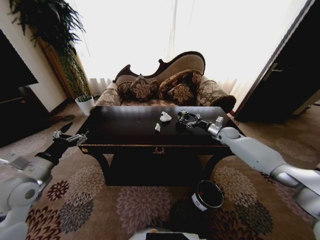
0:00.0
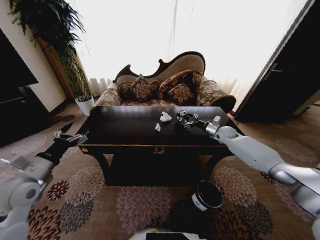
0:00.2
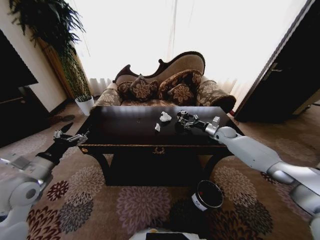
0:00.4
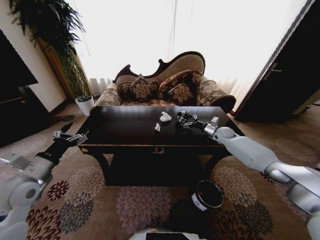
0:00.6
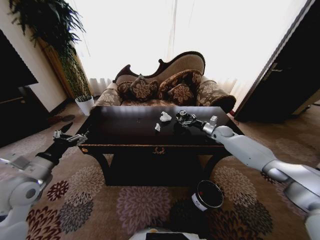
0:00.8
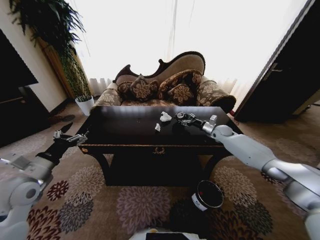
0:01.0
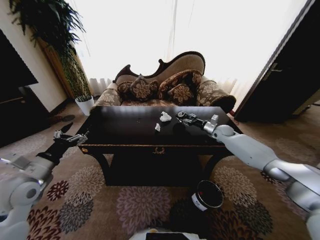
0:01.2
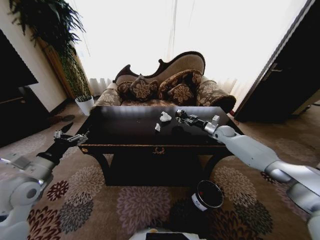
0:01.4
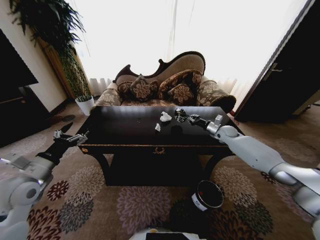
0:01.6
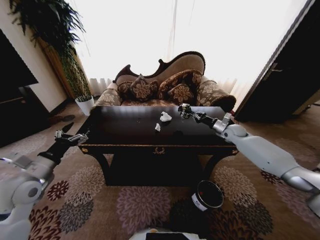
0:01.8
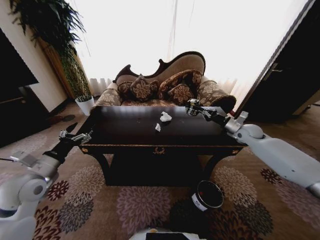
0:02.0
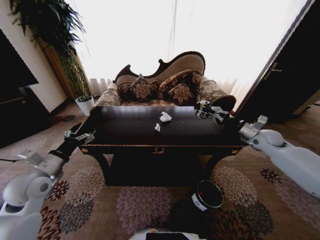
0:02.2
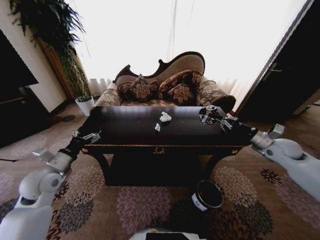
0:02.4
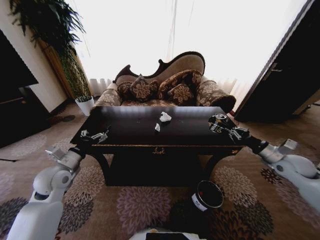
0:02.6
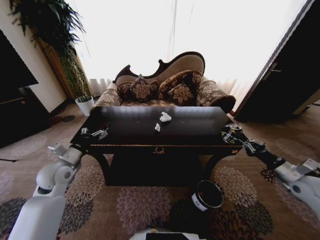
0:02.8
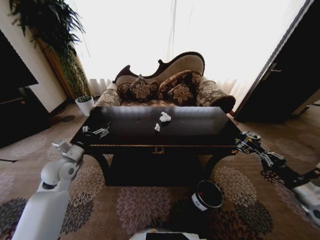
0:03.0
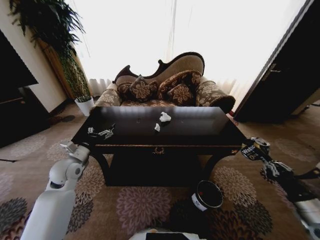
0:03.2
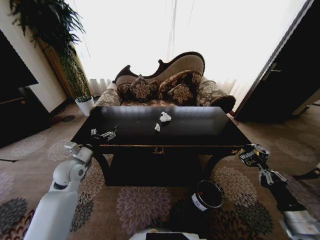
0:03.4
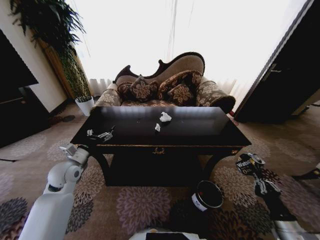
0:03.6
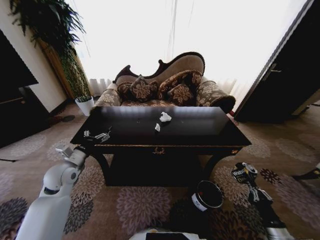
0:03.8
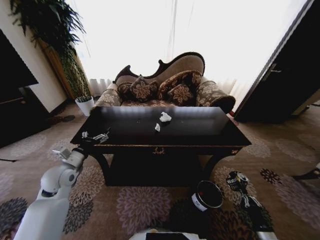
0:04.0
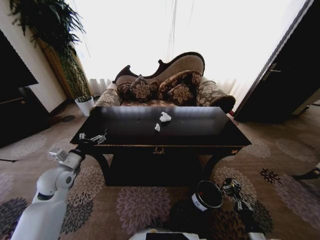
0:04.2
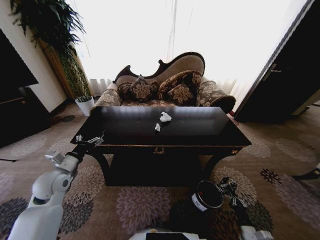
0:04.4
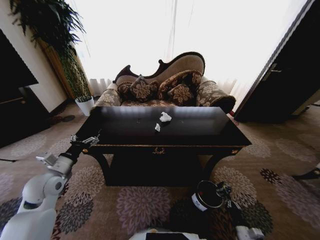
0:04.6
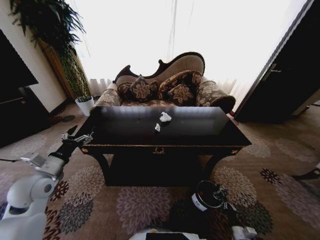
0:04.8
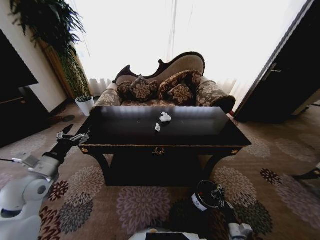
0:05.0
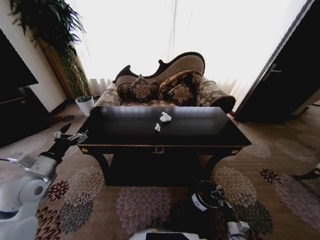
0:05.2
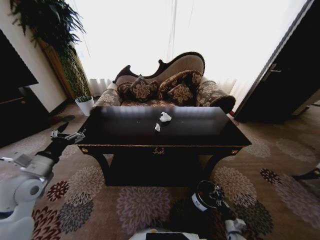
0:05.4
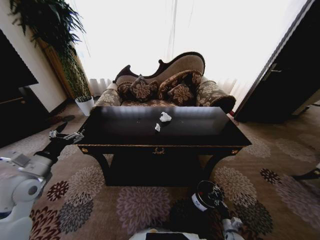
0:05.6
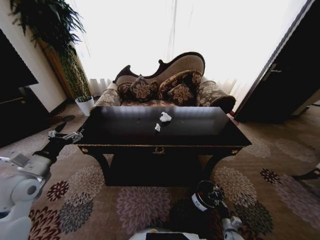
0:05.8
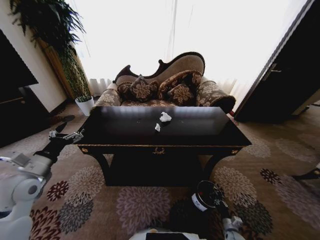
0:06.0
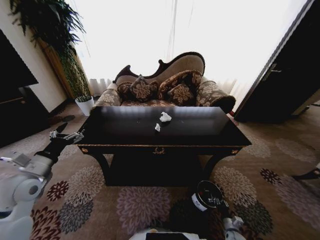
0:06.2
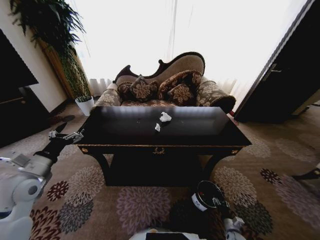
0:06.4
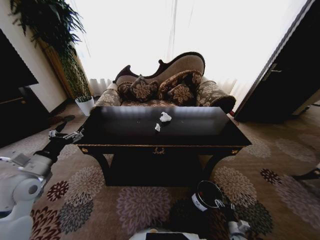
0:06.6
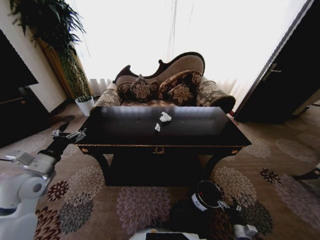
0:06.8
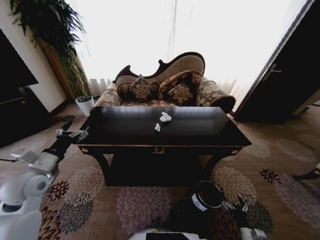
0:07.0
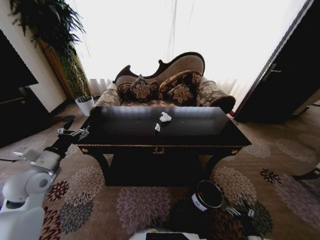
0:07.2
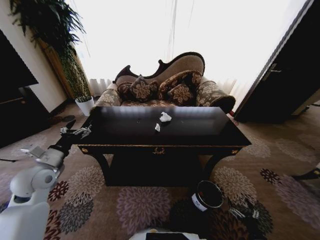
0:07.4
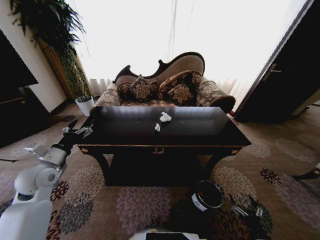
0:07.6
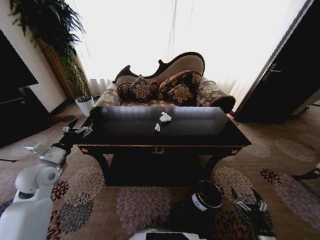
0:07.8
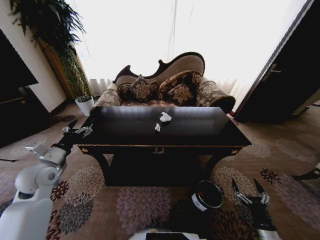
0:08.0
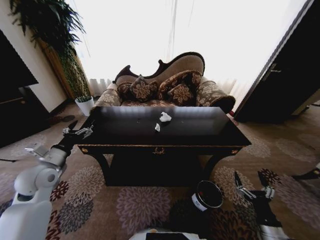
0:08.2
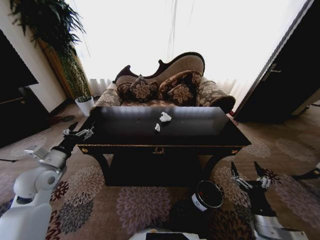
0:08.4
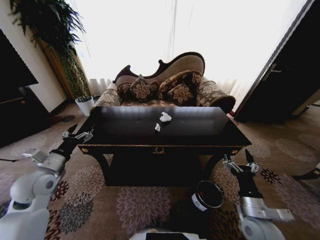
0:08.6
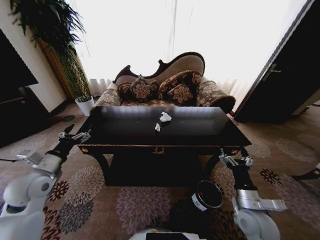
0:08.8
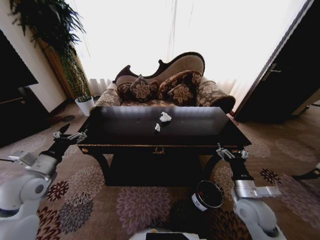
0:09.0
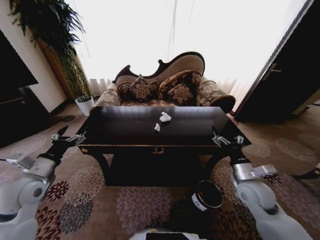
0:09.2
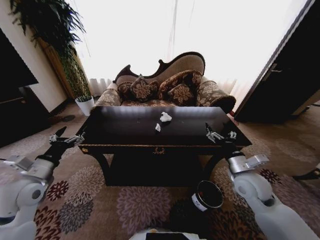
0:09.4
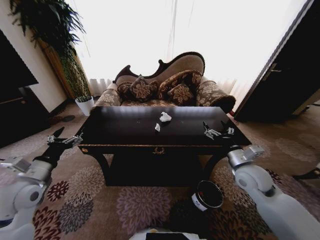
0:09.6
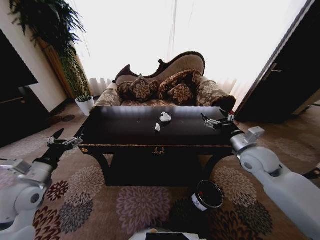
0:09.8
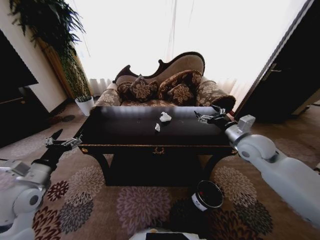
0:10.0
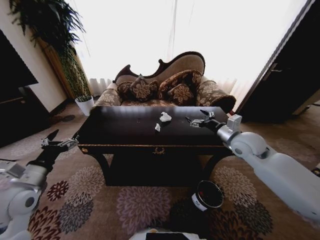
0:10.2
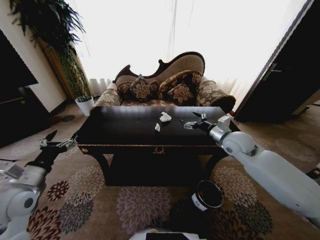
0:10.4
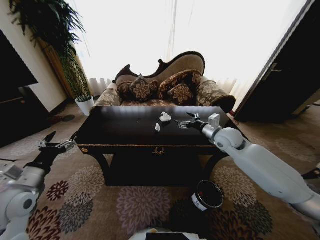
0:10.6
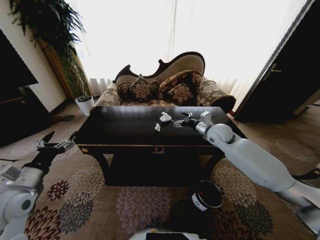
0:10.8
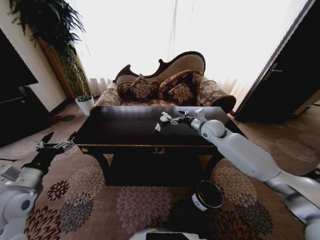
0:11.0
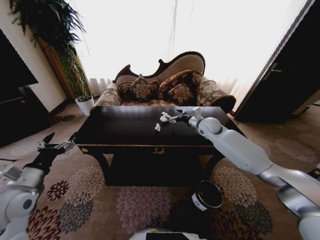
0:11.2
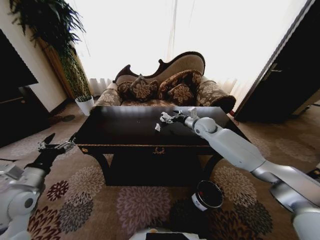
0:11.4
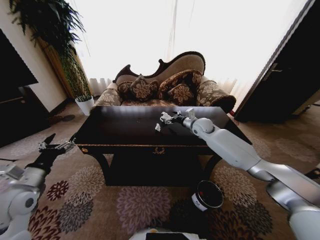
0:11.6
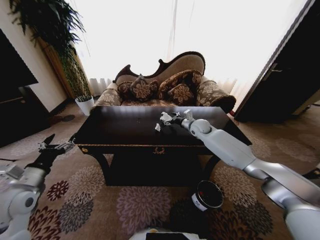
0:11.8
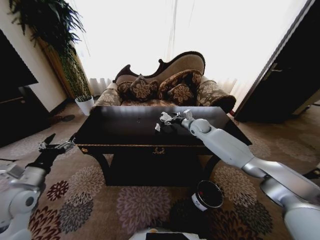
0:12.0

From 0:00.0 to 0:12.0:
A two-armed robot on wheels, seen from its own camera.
Task of the whole recording: Move to the front of the table and place the trash on the table into the trash bin.
From 0:00.0 to 0:01.6: The right gripper closes its fingers.
From 0:01.6 to 0:03.0: The left gripper goes approximately 10 cm forward; the right gripper travels backward by some 40 cm.
From 0:03.0 to 0:04.4: The right gripper moves downward, approximately 30 cm.
From 0:04.4 to 0:06.0: The left gripper is displaced upward by some 5 cm. The right gripper travels downward by about 10 cm.
From 0:06.0 to 0:07.6: The right gripper heads upward and backward, covering approximately 15 cm, and opens its fingers.
From 0:07.6 to 0:09.0: The right gripper moves upward, forward and to the left, about 30 cm.
From 0:09.0 to 0:10.4: The right gripper heads forward and upward, covering some 25 cm.
From 0:10.4 to 0:12.0: The right gripper goes about 20 cm forward and to the left.

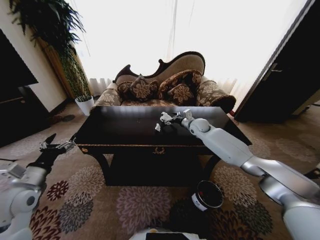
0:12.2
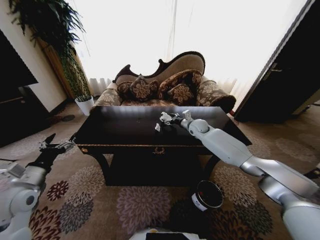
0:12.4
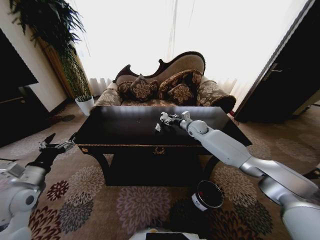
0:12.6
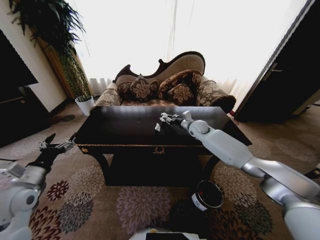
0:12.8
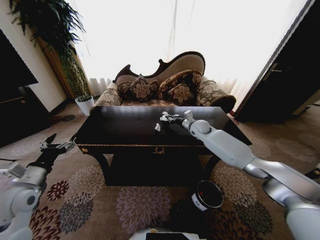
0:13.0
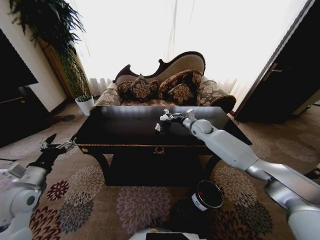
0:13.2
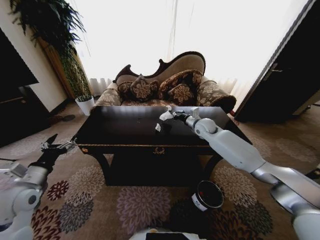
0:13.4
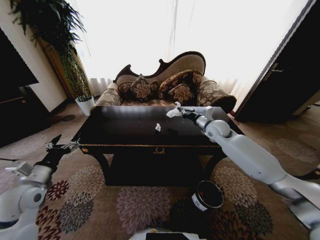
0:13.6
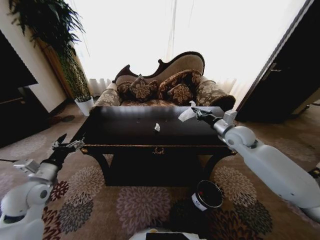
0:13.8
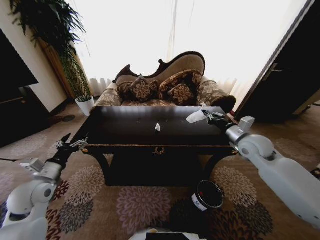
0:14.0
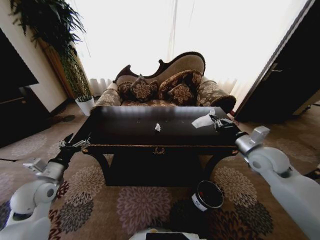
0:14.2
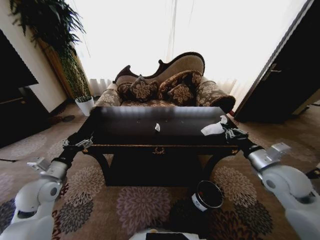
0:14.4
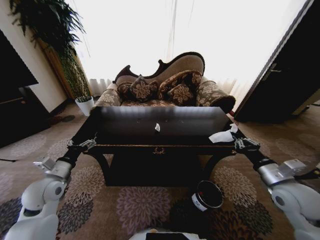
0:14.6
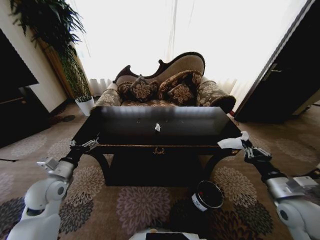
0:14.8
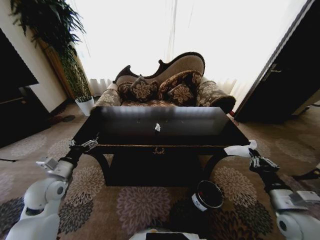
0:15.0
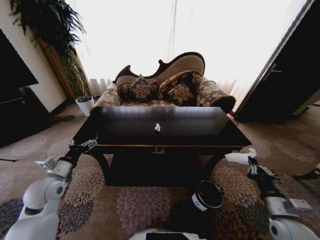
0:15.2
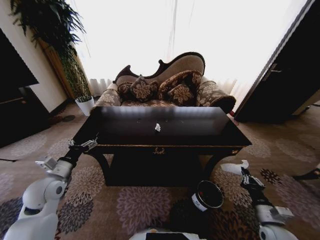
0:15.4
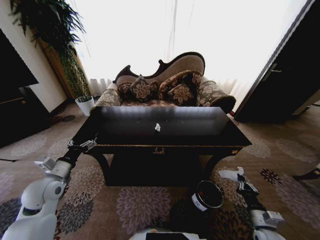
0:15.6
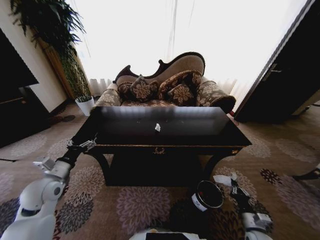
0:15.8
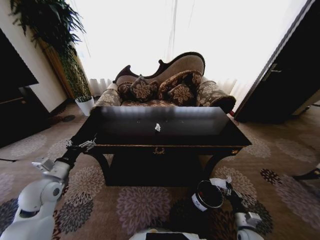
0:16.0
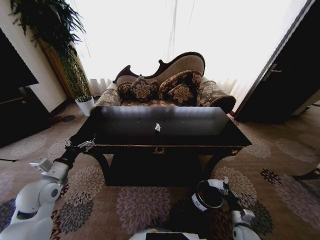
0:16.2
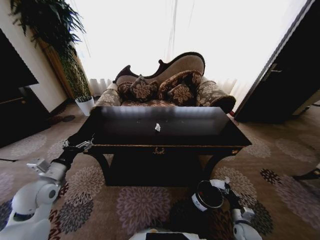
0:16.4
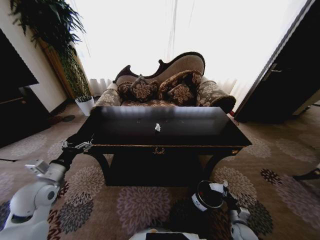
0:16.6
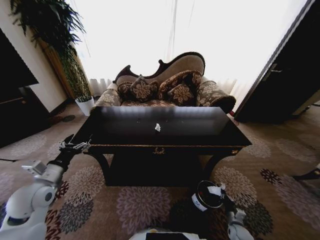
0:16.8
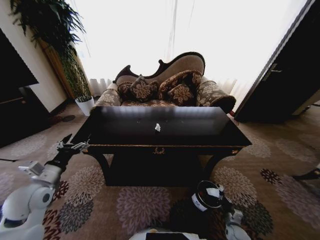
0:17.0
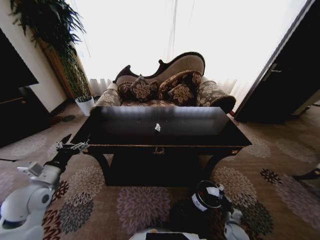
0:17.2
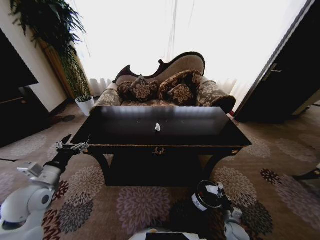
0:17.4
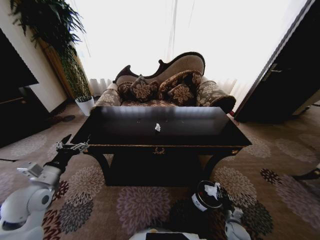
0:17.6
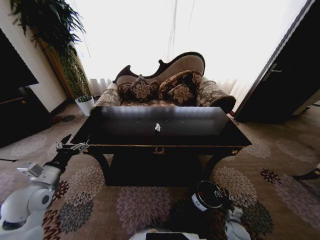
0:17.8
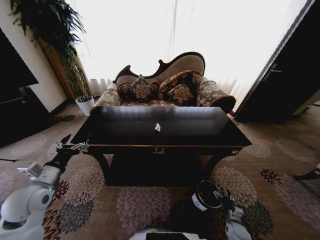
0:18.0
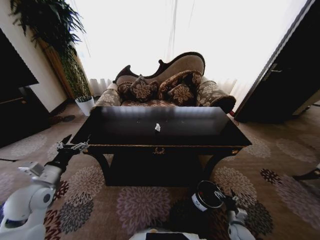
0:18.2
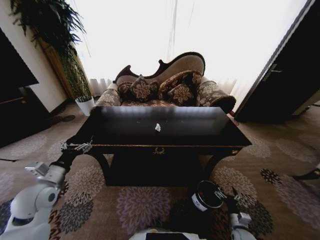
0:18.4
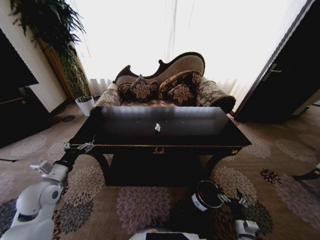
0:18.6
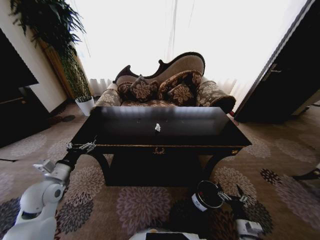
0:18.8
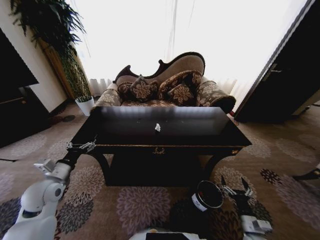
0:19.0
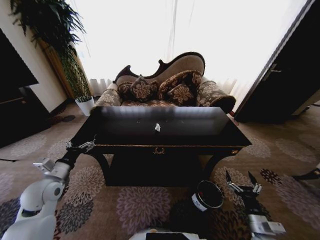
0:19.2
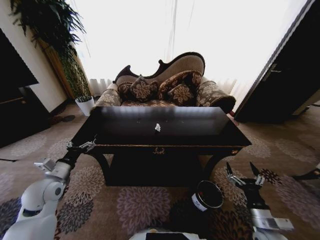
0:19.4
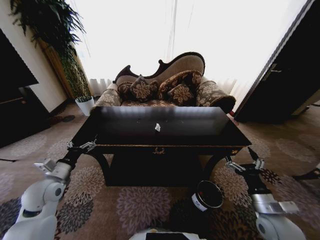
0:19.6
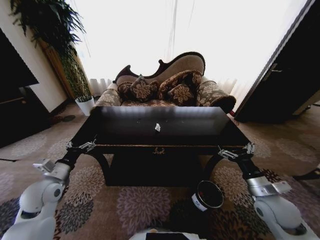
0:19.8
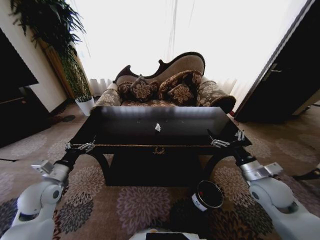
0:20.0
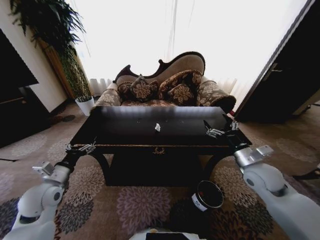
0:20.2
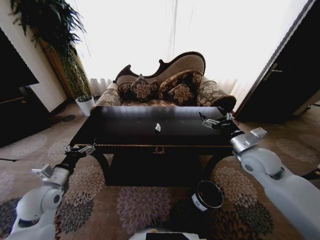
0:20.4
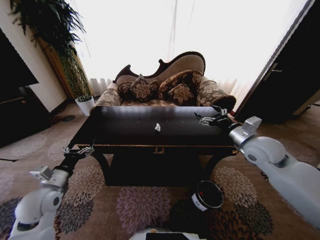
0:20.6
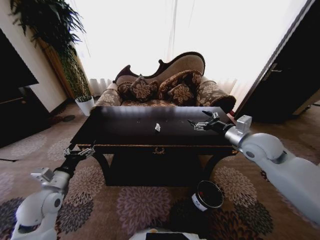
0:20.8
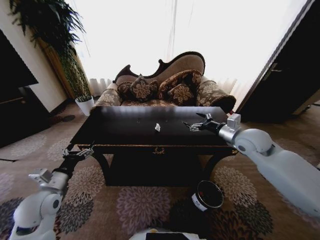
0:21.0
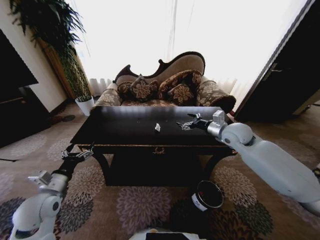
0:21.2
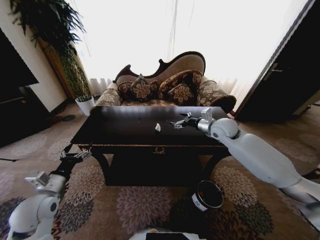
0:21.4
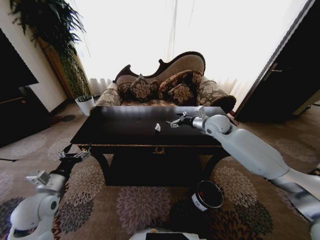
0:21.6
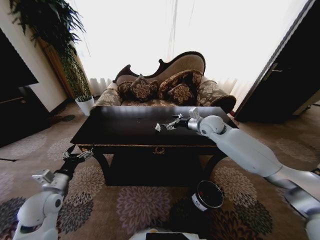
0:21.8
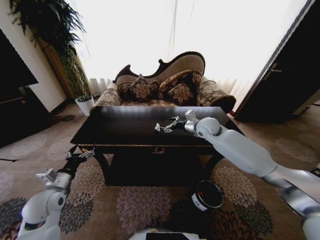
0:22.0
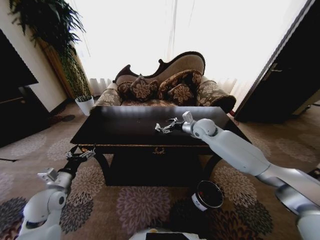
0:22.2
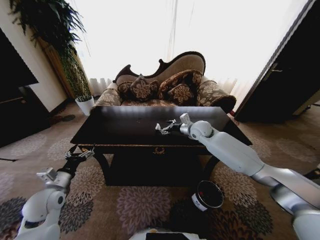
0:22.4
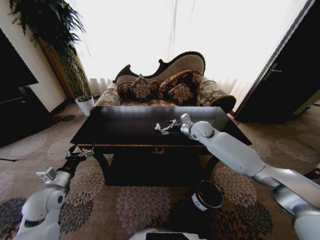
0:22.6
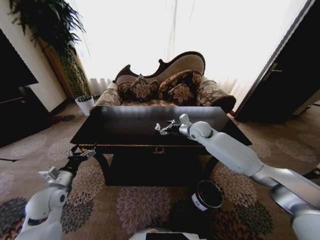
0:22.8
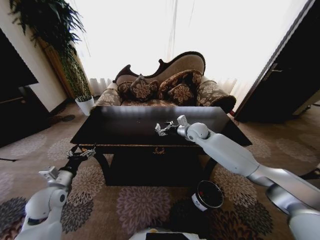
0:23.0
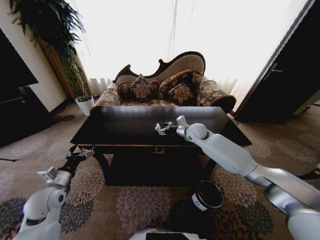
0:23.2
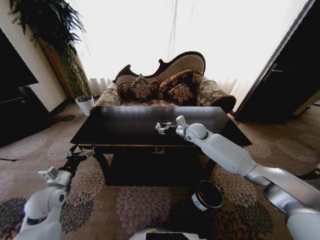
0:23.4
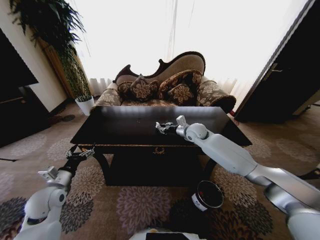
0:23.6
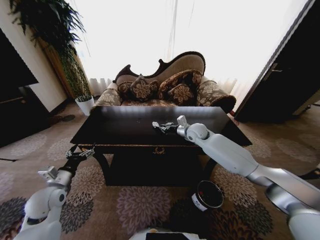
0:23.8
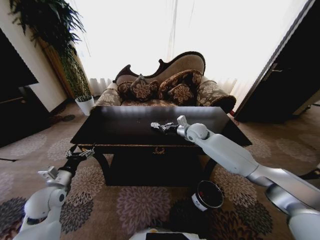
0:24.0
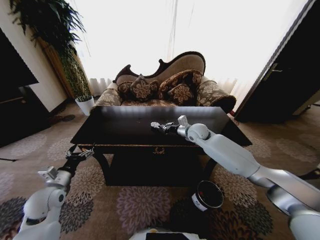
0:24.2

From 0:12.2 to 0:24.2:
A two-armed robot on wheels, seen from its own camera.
Task of the whole recording: Move to the front of the table and place the trash on the table into the trash bin.
From 0:12.2 to 0:13.8: The right gripper heads backward and to the right, covering some 15 cm, and closes.
From 0:13.8 to 0:15.2: The right gripper goes about 35 cm backward and downward.
From 0:15.2 to 0:16.6: The right gripper is displaced downward by some 25 cm.
From 0:16.6 to 0:18.2: The right gripper opens its fingers.
From 0:18.2 to 0:19.8: The right gripper moves upward, about 30 cm.
From 0:19.8 to 0:21.2: The right gripper travels forward and upward by approximately 25 cm.
From 0:21.2 to 0:22.6: The right gripper heads to the left, forward and downward, covering about 15 cm.
From 0:22.6 to 0:24.2: The right gripper closes up.
